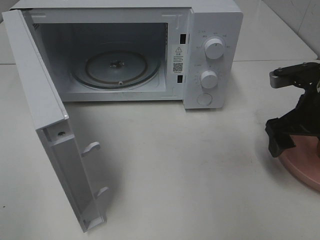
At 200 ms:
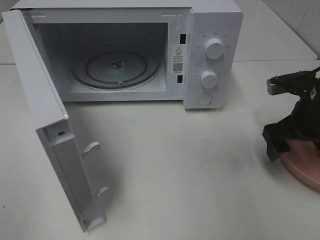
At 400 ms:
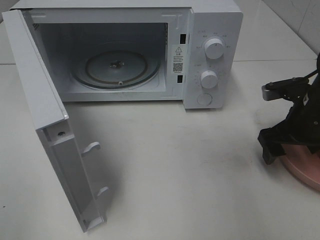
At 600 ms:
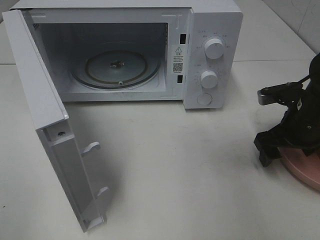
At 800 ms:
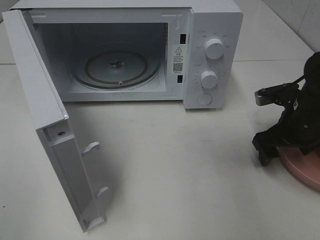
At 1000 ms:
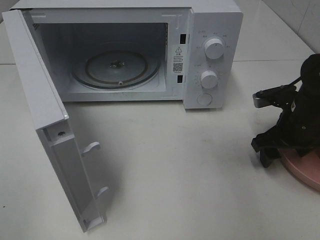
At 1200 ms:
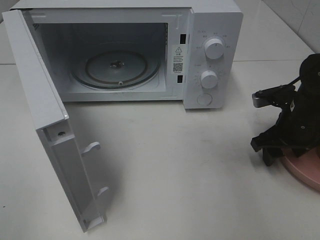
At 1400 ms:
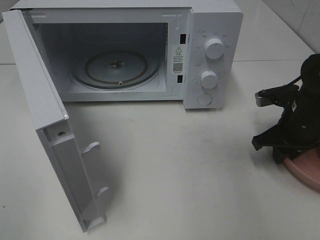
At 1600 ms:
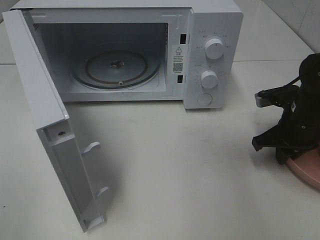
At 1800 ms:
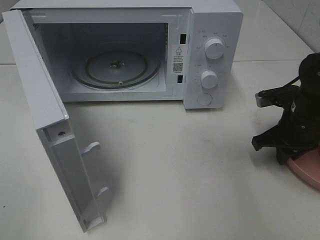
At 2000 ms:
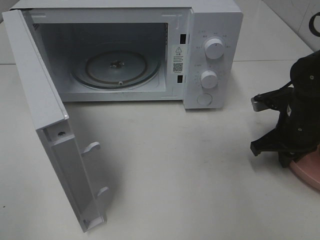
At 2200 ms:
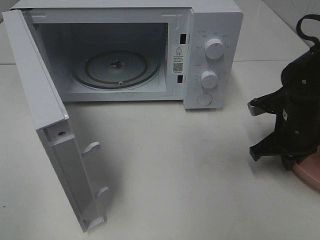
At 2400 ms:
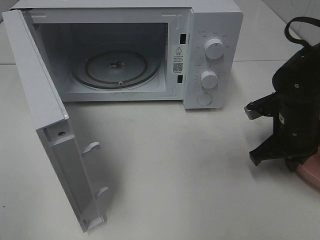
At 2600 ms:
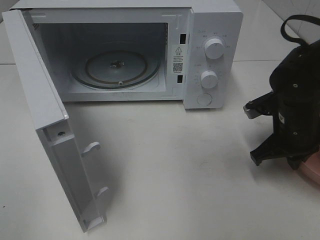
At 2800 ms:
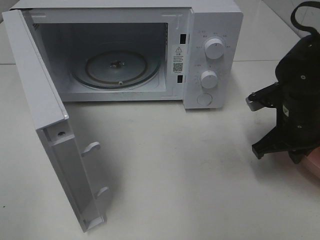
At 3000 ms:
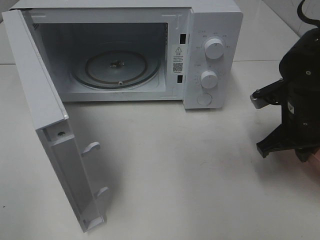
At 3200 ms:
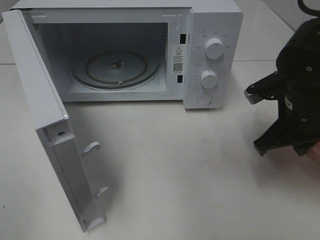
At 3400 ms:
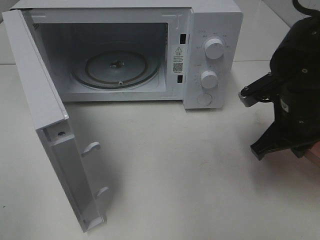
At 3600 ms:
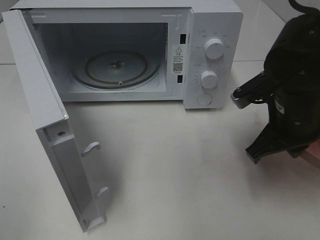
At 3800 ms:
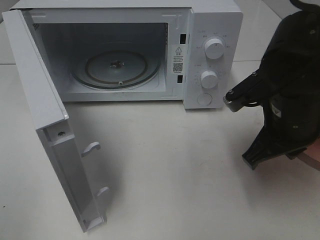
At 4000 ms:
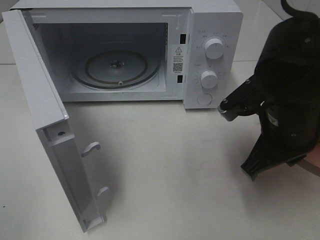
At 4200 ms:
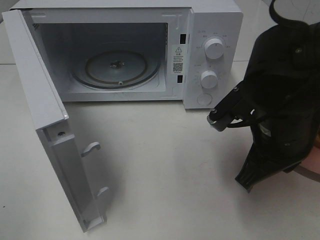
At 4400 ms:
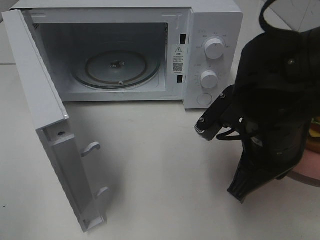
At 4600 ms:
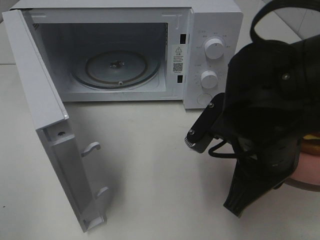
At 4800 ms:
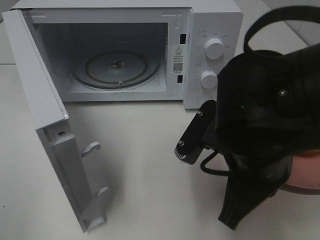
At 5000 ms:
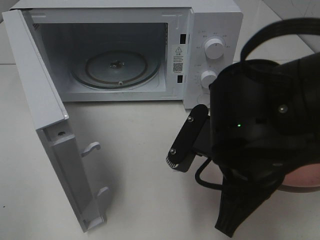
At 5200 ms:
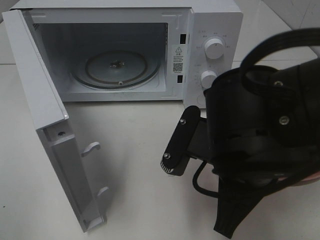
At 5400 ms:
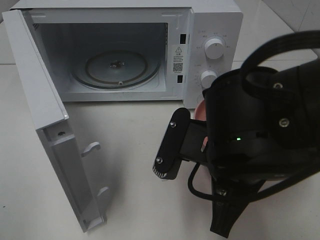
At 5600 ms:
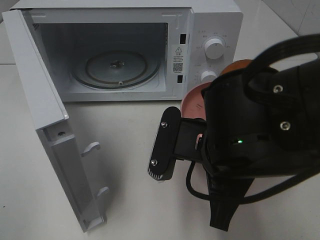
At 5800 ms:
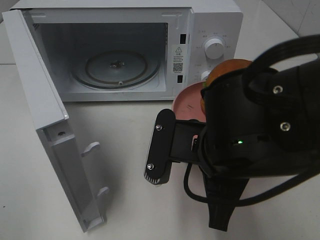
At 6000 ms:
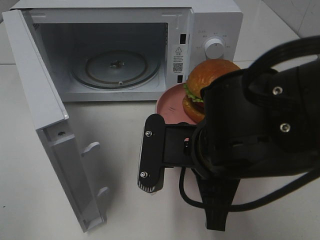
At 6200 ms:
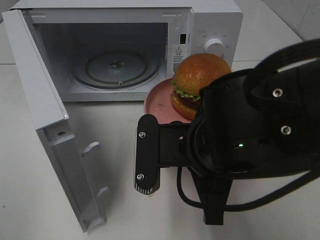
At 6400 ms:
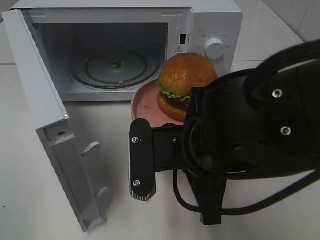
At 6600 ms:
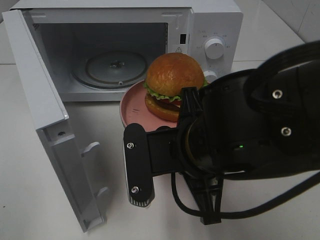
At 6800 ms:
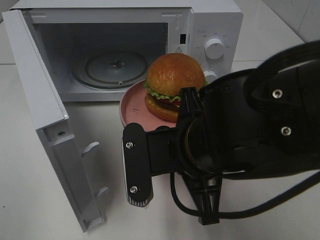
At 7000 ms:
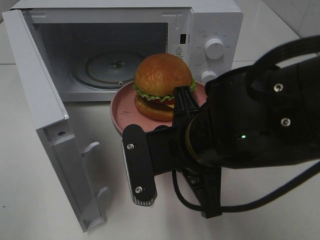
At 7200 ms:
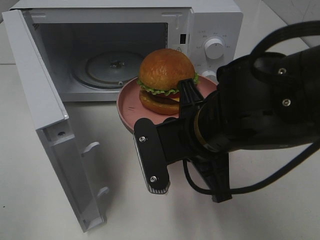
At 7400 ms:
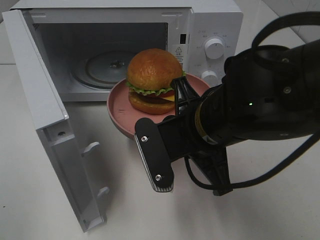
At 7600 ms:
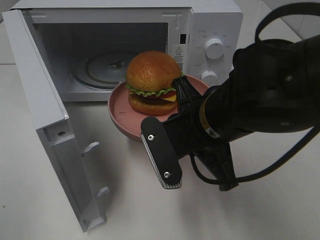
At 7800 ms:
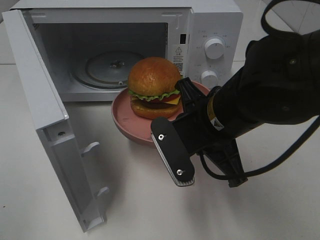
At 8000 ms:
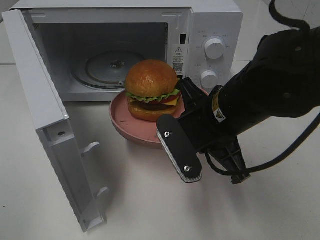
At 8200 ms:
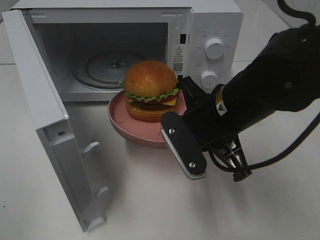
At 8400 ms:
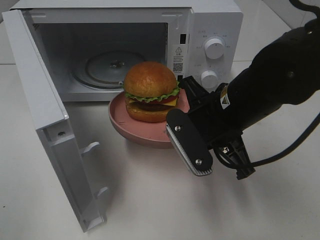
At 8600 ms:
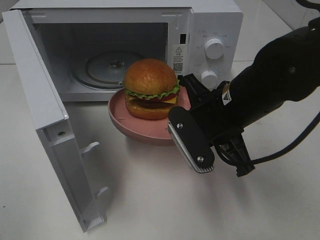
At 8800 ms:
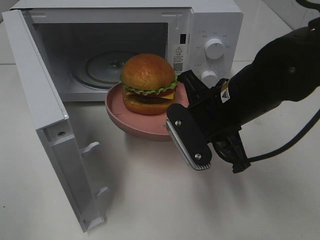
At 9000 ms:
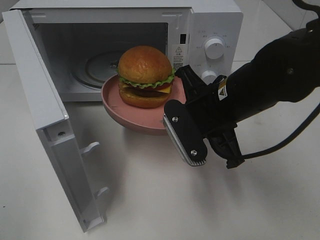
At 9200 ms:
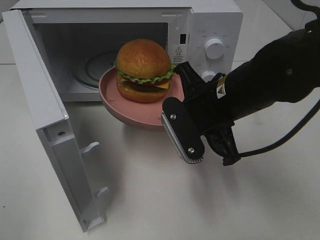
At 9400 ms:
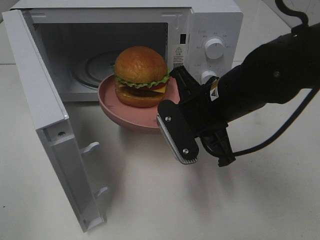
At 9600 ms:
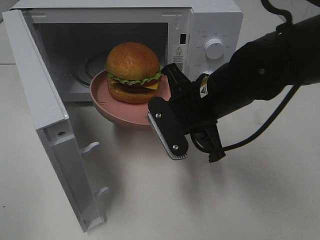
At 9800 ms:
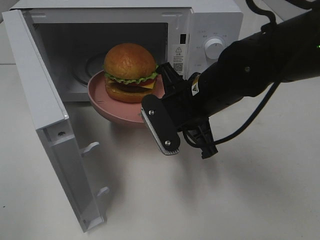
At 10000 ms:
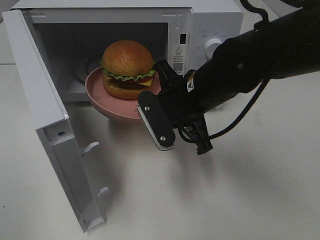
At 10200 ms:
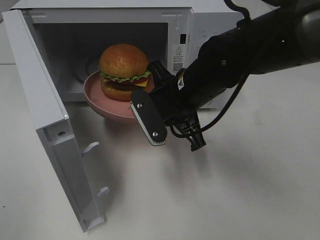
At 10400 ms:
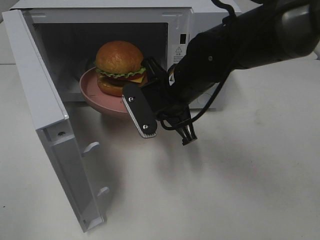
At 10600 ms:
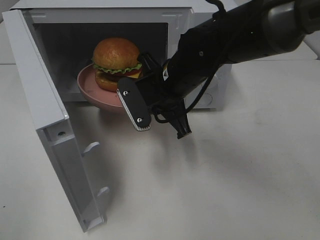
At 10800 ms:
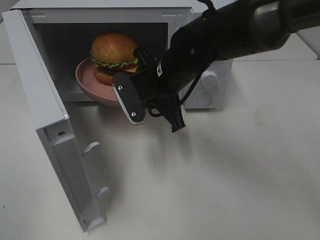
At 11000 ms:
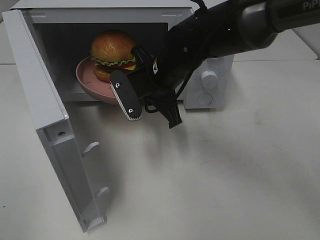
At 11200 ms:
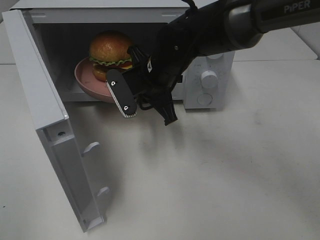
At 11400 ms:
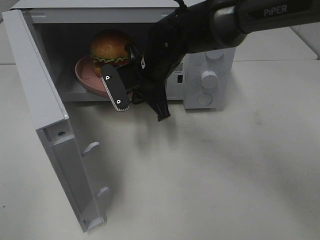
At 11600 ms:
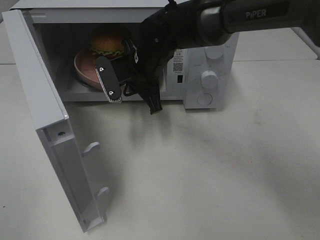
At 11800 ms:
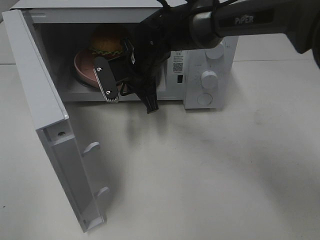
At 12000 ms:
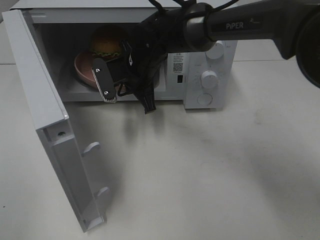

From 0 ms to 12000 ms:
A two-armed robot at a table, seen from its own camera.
Task of the whole recording: Heat the burger.
Step, from 0 ms to 2400 ms: Right hand: grab the plate with the hamburger.
From 0 ms to 1600 ms: The right gripper heads downward, covering some 5 cm, and closes up.
From 1600 ms to 3000 ms: The right gripper ends up roughly 5 cm from where it was.
From 3000 ms to 4400 ms: The right gripper moves to the left and backward, approximately 15 cm.
From 4400 ms to 6000 ms: The right gripper goes about 5 cm to the left.
From 7600 ms to 9000 ms: The grippers stay close to where they were, moving slightly.
From 9000 ms to 10400 ms: The right gripper is displaced forward and to the left by about 10 cm.
From 10400 ms to 12000 ms: The right gripper is displaced forward and to the left by some 10 cm.

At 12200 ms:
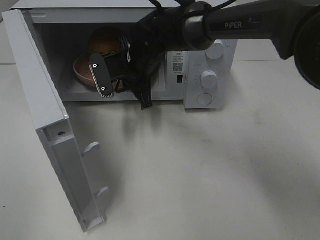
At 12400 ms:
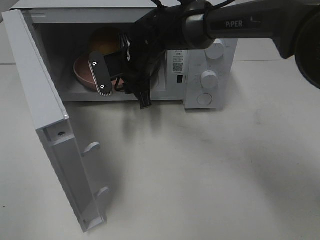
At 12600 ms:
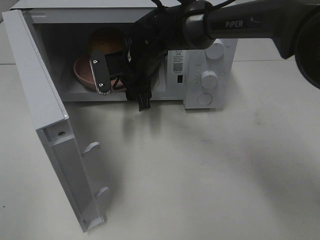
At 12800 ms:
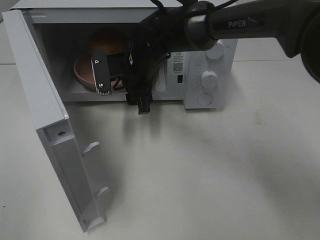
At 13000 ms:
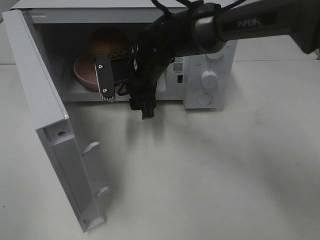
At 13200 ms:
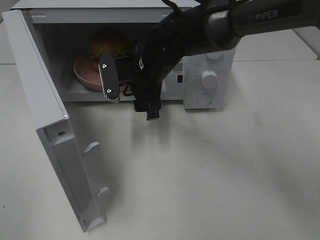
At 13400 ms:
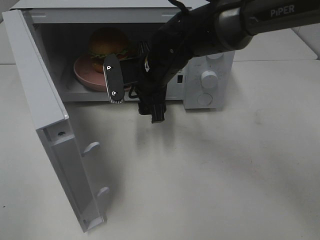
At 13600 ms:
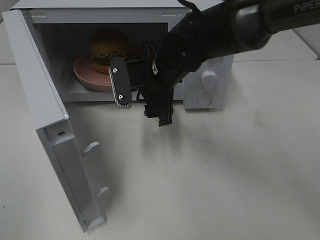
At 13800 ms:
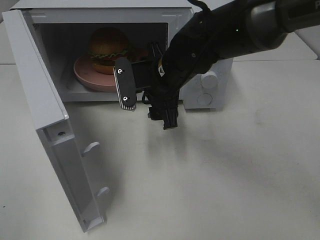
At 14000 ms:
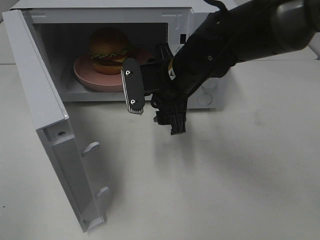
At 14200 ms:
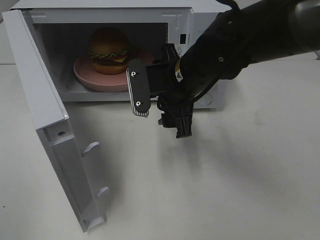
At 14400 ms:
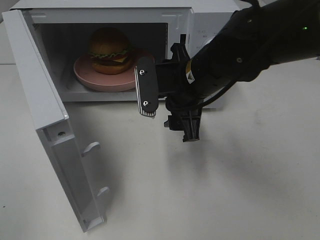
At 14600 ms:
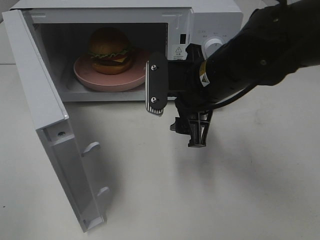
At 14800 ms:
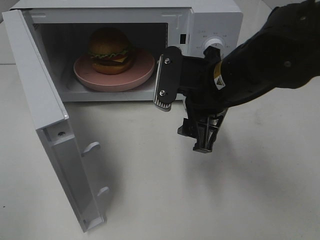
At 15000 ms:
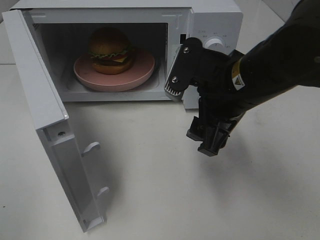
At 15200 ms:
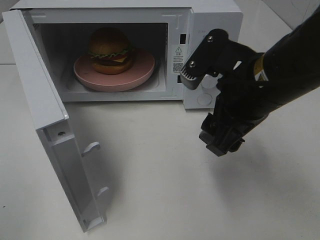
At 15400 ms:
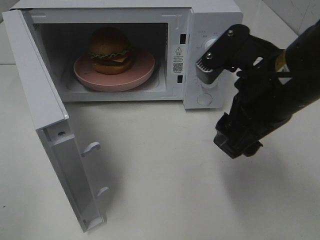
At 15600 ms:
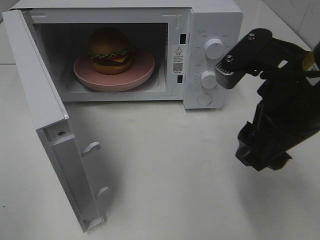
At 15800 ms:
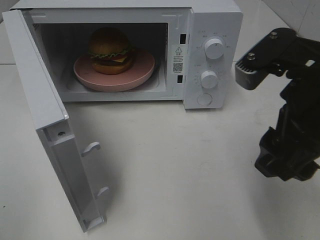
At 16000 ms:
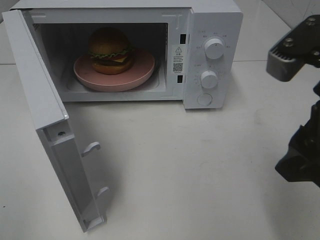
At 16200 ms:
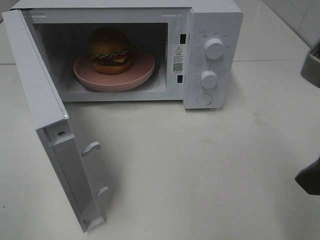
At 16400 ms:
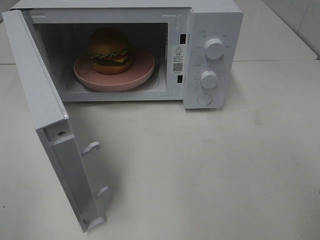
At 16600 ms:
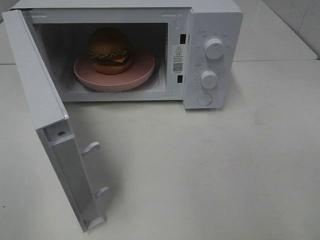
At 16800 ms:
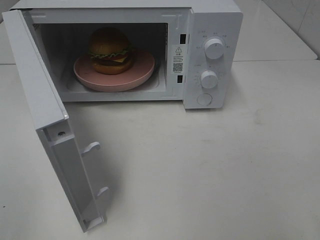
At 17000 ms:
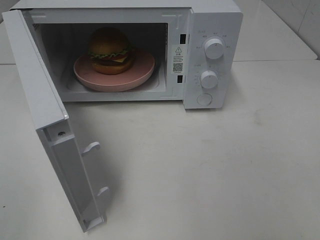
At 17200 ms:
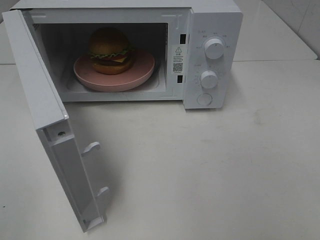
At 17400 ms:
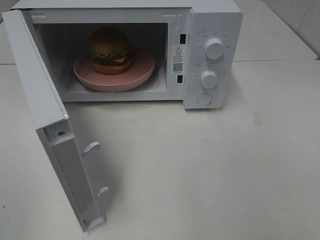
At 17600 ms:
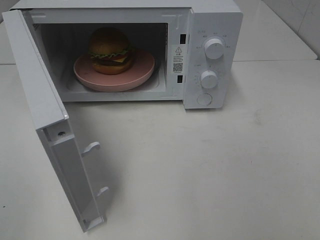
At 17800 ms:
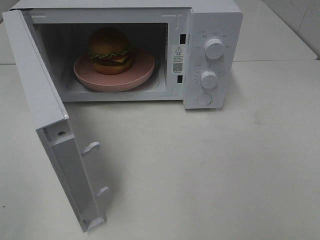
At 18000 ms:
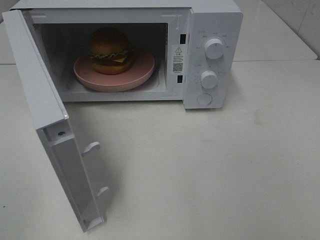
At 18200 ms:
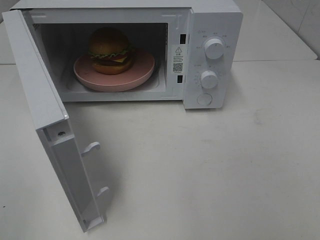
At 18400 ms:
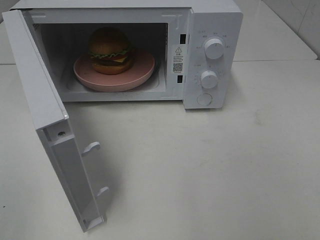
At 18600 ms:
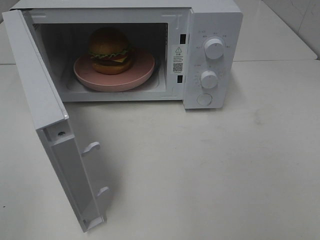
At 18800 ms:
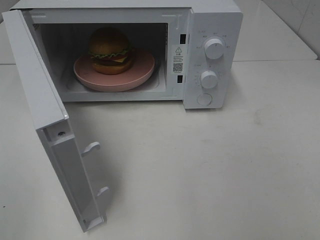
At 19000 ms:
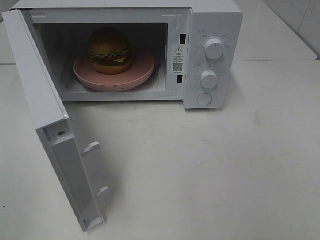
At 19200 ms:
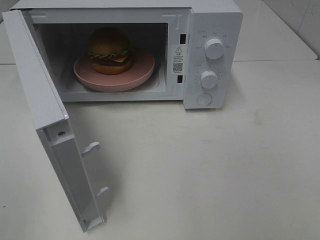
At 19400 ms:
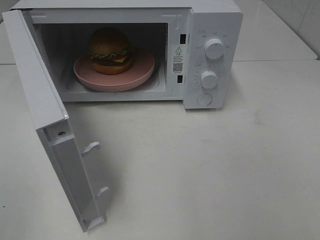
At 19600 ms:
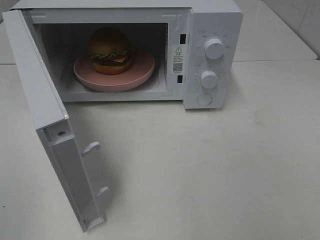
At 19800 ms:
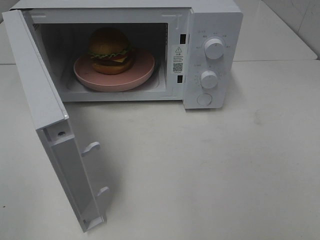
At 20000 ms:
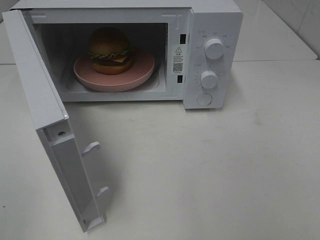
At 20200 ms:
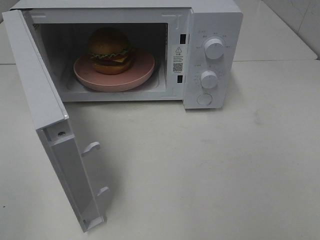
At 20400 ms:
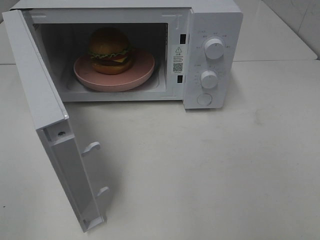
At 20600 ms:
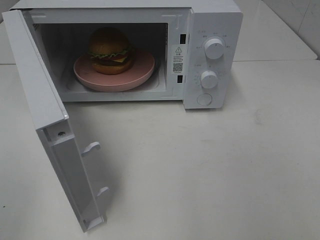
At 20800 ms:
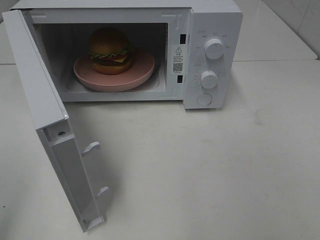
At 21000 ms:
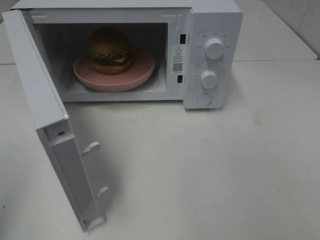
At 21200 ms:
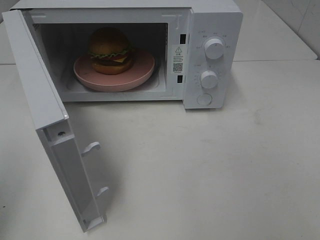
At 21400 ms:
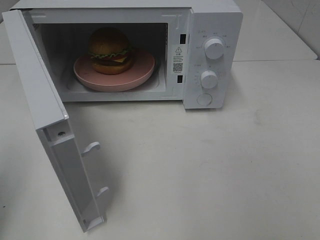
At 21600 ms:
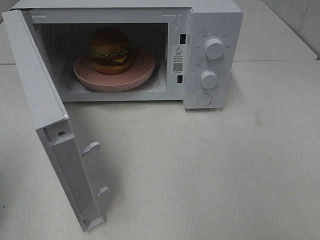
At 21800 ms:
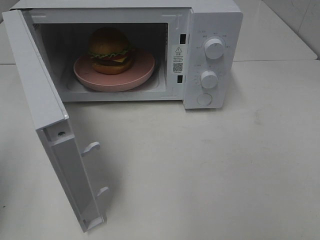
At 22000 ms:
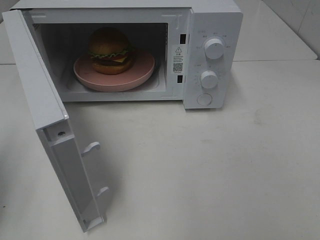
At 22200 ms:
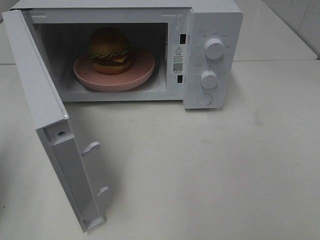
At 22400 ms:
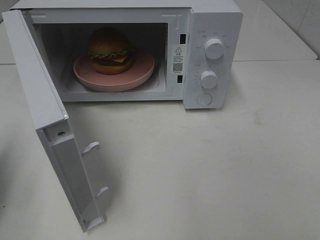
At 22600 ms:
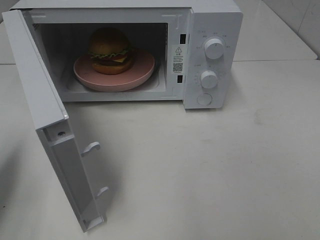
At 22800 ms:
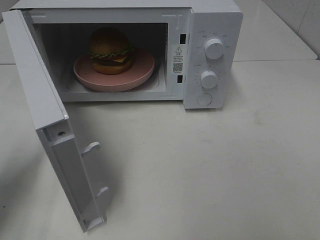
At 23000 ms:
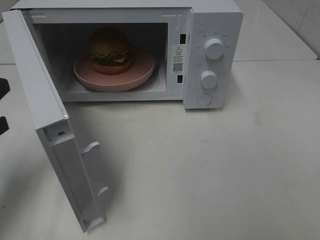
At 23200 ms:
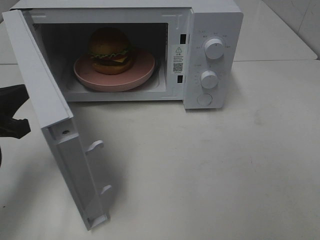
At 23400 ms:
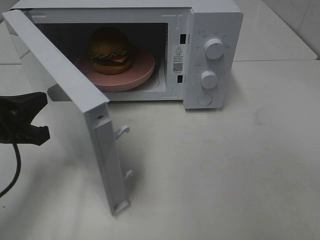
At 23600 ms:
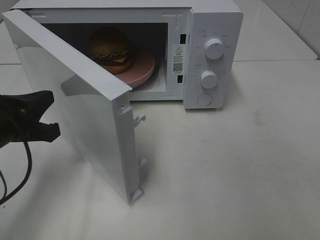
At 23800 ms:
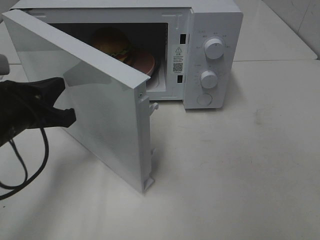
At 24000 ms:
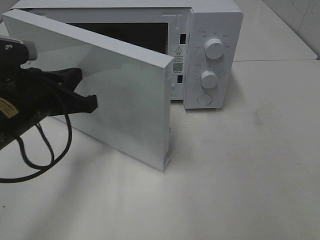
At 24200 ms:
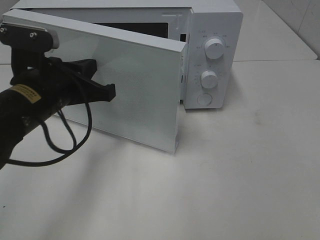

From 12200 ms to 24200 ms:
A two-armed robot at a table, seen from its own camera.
Task of the whole recording: Heat the burger.
From 12200 ms to 13800 ms: The right gripper is displaced backward and to the right by roughly 10 cm, and opens up.
From 13800 ms to 15200 ms: The right gripper shifts about 15 cm backward, to the right and upward.
From 15200 ms to 16600 ms: The right gripper goes roughly 20 cm backward and to the right.
From 18200 ms to 19800 ms: Both grippers stay put.
From 21200 ms to 22600 ms: The left gripper heads downward and forward, covering approximately 15 cm.
From 22600 ms to 24200 ms: The left gripper heads to the right and forward, covering some 20 cm.
